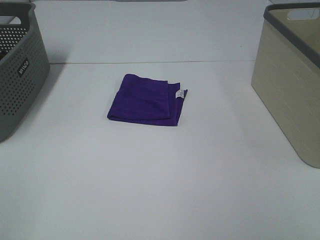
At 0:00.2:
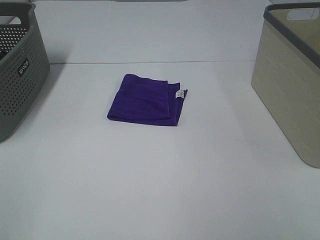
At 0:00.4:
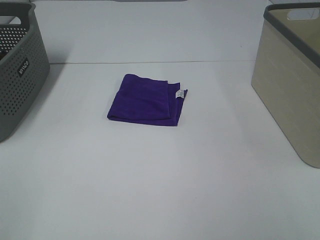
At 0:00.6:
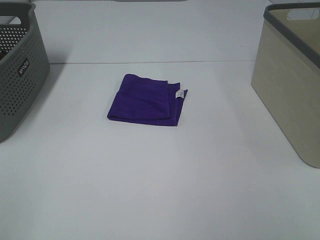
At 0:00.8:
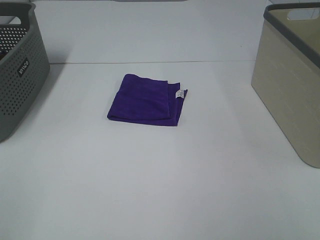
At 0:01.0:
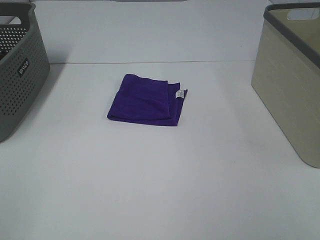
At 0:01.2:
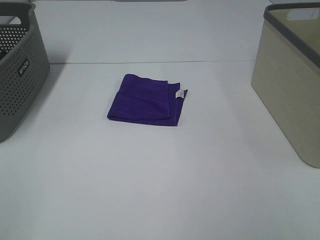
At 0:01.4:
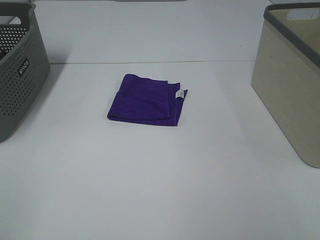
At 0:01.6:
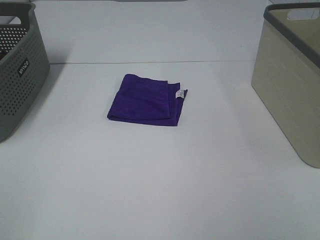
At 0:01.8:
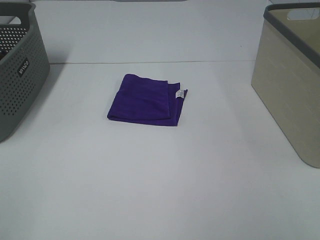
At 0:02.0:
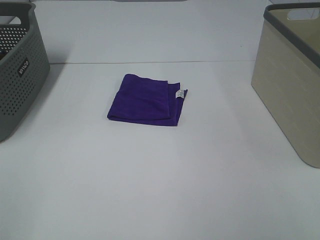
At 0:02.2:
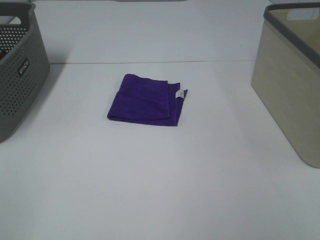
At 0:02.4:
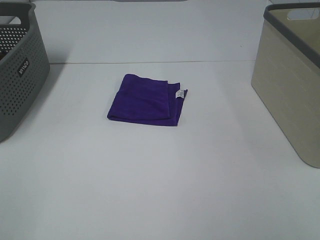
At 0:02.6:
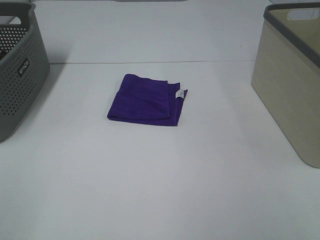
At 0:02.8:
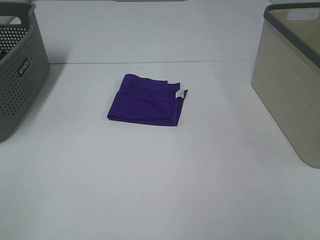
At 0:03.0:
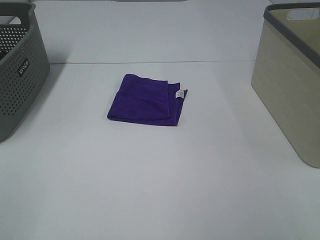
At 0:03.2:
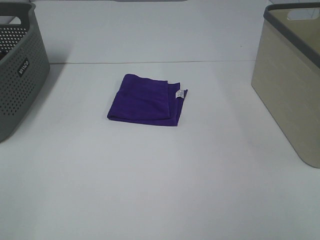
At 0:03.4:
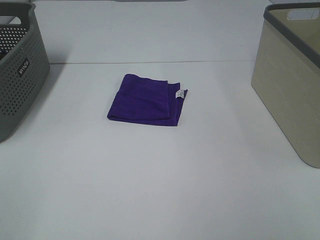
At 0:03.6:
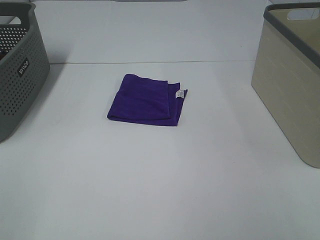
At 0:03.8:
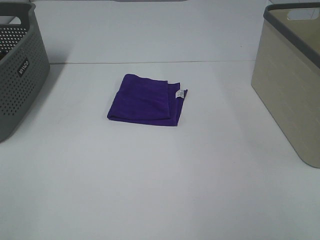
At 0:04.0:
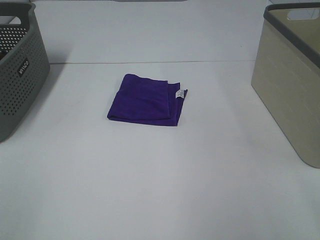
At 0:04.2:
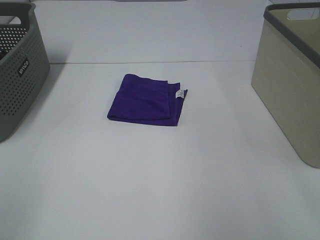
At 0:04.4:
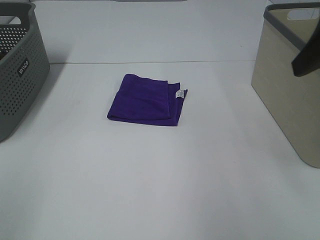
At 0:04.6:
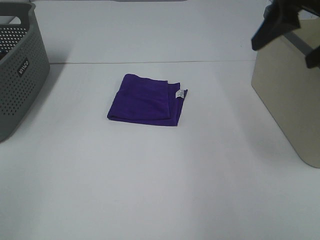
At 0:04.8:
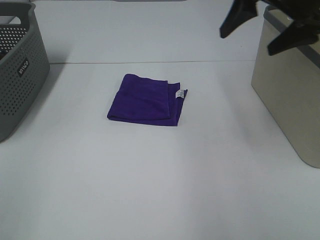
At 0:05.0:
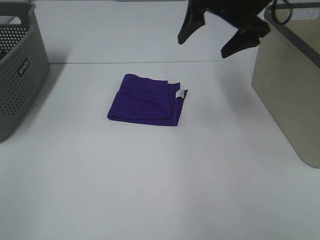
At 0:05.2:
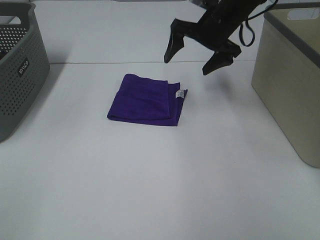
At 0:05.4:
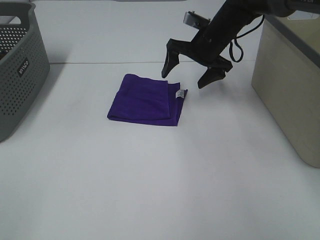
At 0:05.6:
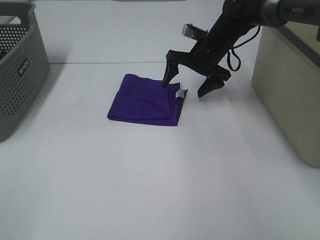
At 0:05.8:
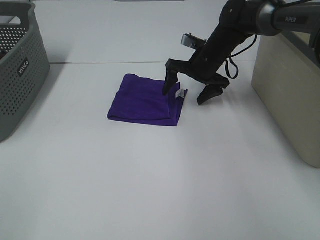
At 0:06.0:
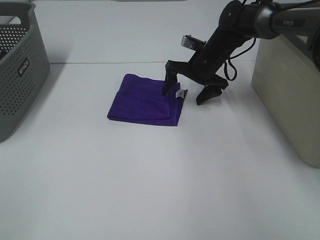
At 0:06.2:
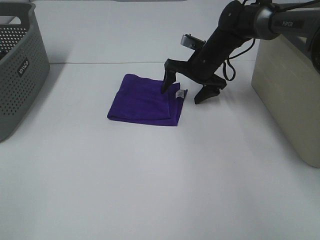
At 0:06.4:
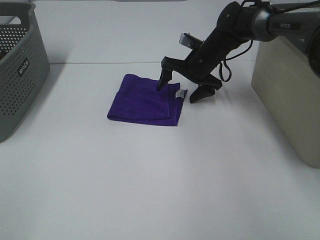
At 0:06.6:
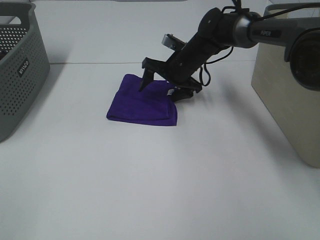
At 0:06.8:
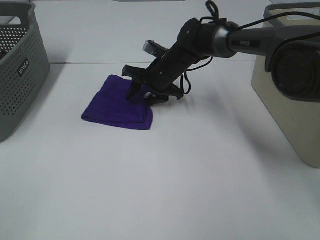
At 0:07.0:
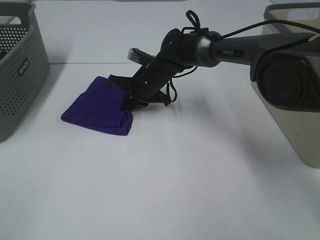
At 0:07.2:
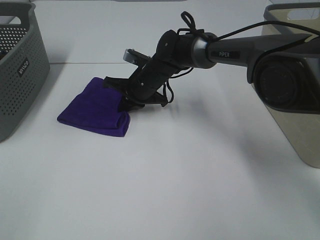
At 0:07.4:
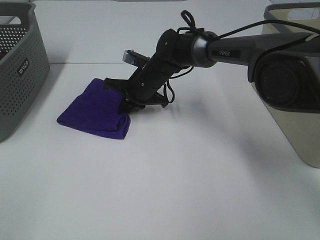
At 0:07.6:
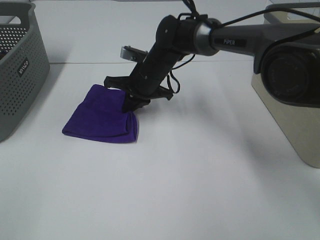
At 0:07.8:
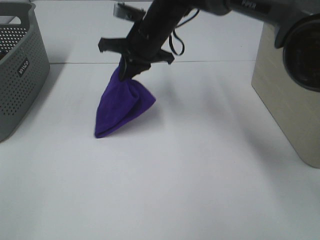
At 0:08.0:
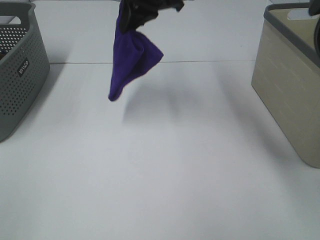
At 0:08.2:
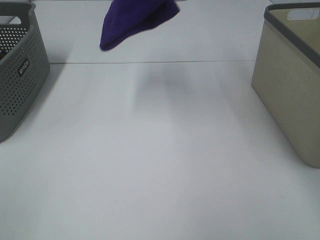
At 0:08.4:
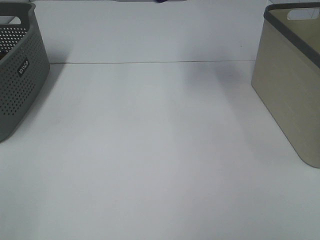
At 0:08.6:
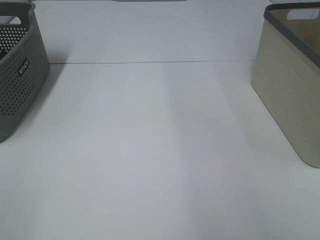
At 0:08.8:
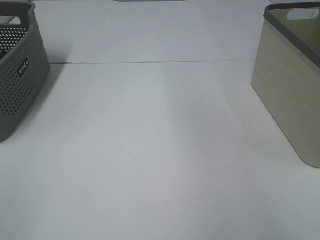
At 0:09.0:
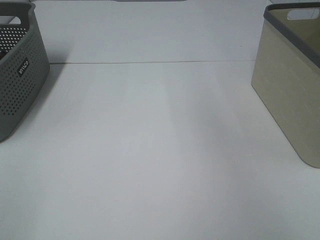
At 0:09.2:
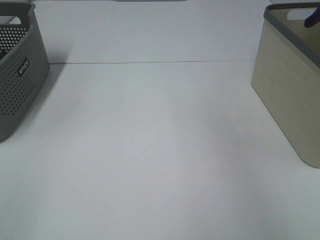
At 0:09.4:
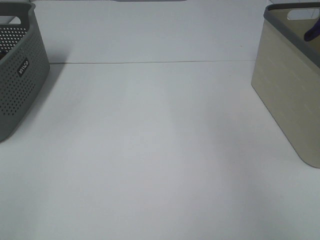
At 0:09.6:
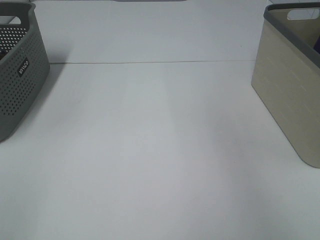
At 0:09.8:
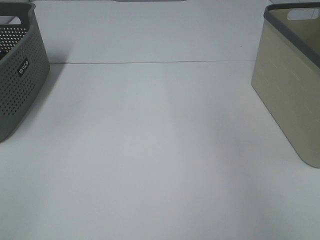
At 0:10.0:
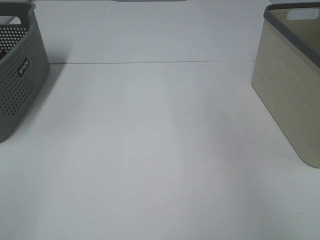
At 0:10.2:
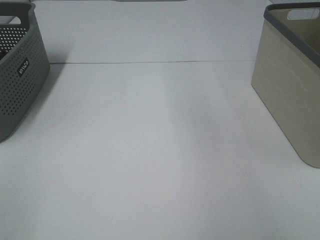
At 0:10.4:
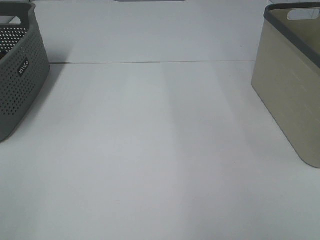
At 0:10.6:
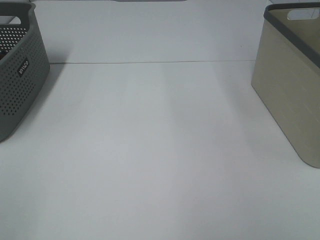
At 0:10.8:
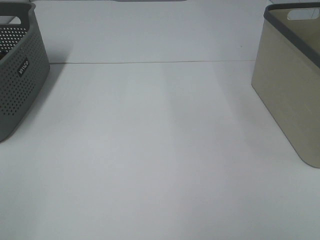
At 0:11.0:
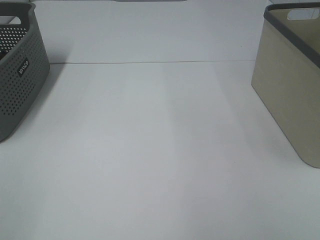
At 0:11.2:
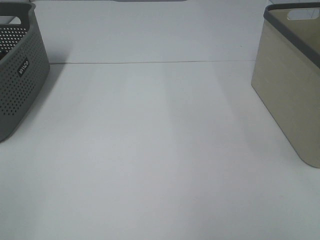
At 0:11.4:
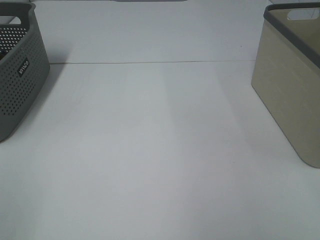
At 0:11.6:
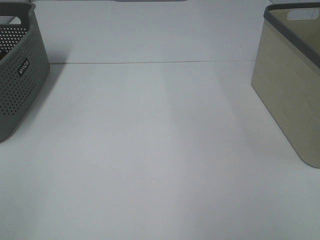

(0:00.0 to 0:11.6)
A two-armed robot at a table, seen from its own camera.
Step, 0:00.0 - 0:07.0: Right hand: grab the folded purple towel.
Step, 0:07.2 - 0:09.8: Right hand: place the purple towel in right basket.
0:00.0 - 0:02.8: The two grippers keep their place.
0:02.8 - 0:04.4: The right gripper is displaced forward by some 20 cm.
0:04.4 - 0:05.8: The right gripper goes some 35 cm forward, downward and to the left.
0:05.8 - 0:07.2: The right gripper travels to the left by about 15 cm, and closes up.
0:07.2 - 0:08.8: The right gripper shifts some 50 cm upward and to the right.

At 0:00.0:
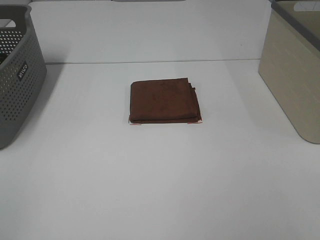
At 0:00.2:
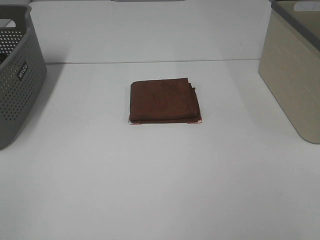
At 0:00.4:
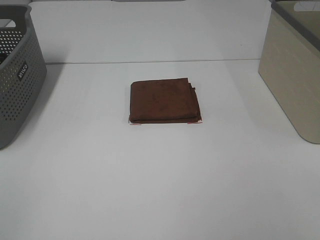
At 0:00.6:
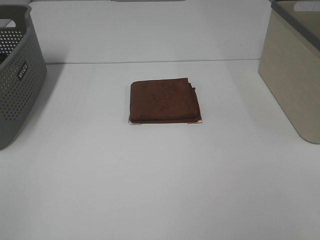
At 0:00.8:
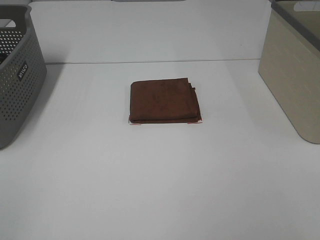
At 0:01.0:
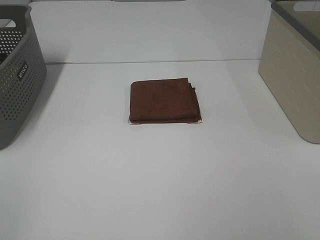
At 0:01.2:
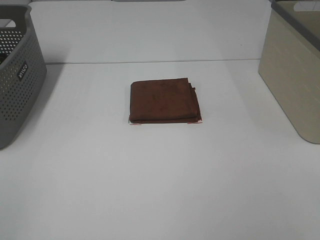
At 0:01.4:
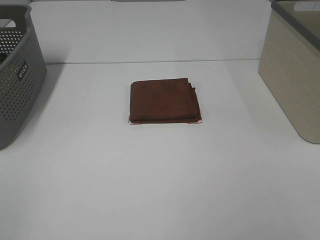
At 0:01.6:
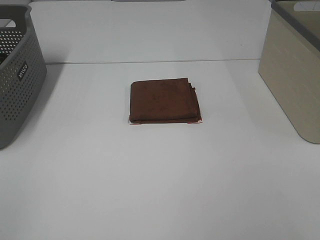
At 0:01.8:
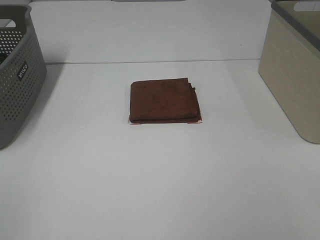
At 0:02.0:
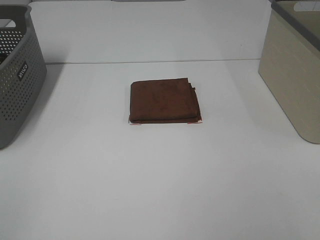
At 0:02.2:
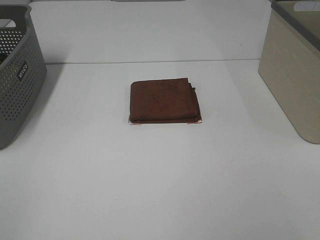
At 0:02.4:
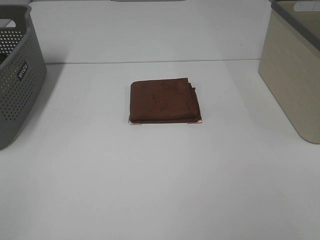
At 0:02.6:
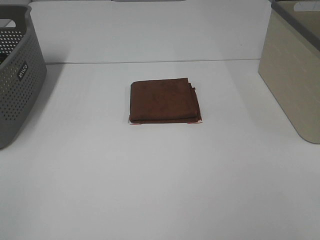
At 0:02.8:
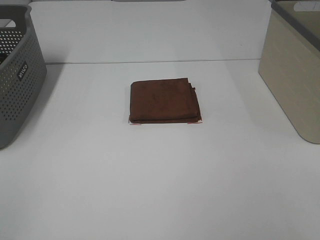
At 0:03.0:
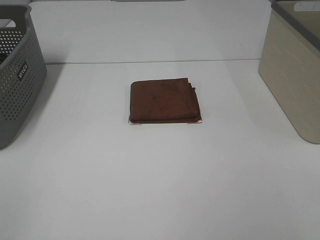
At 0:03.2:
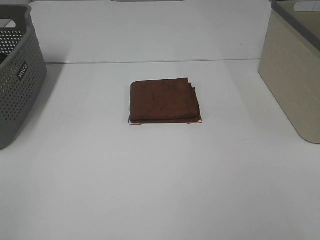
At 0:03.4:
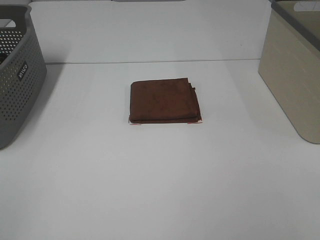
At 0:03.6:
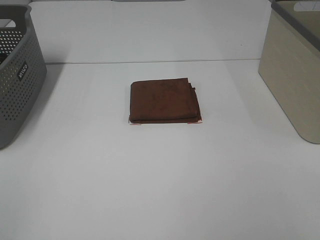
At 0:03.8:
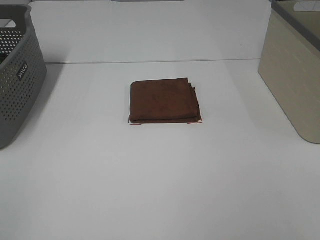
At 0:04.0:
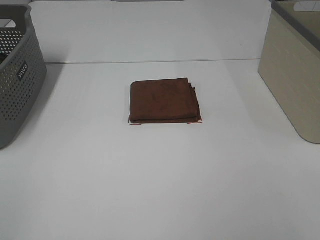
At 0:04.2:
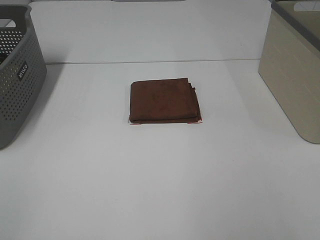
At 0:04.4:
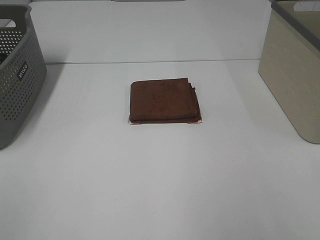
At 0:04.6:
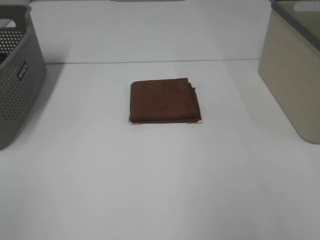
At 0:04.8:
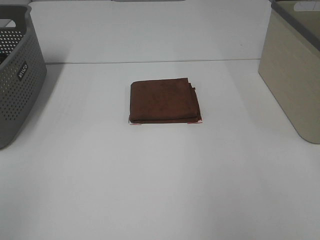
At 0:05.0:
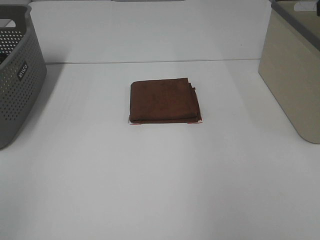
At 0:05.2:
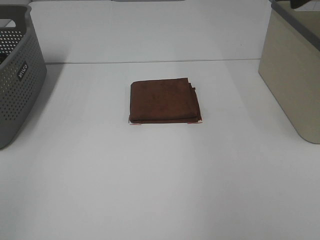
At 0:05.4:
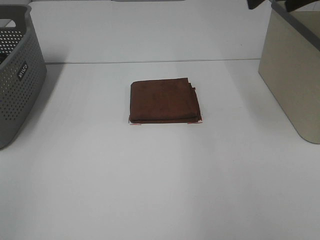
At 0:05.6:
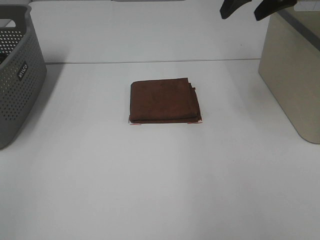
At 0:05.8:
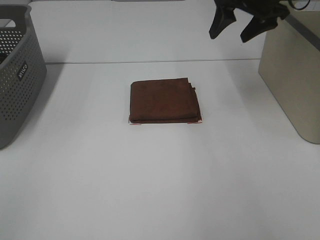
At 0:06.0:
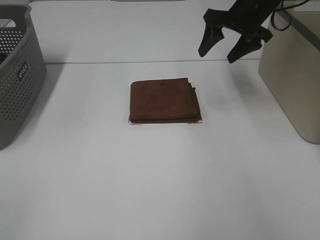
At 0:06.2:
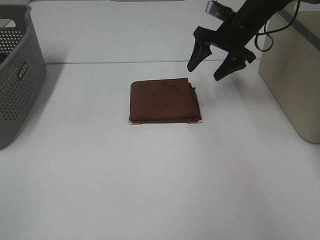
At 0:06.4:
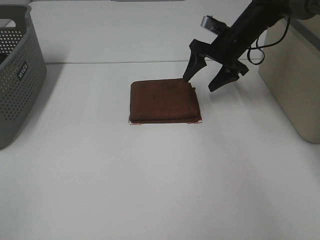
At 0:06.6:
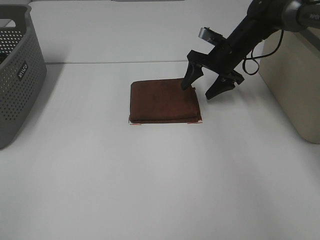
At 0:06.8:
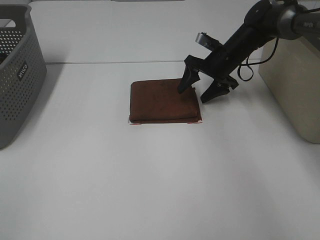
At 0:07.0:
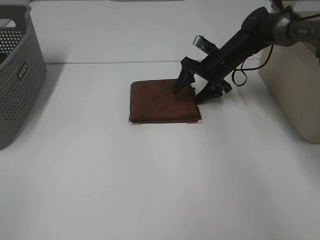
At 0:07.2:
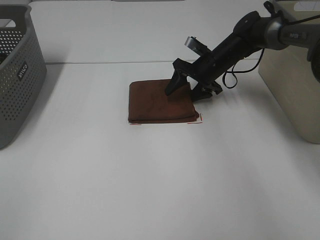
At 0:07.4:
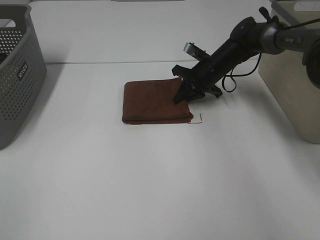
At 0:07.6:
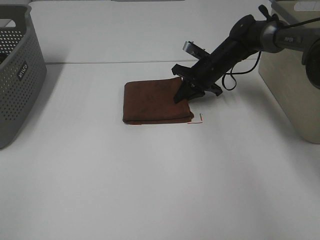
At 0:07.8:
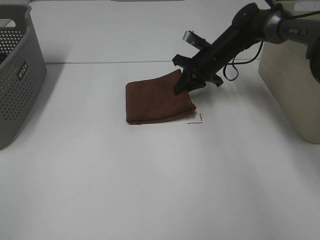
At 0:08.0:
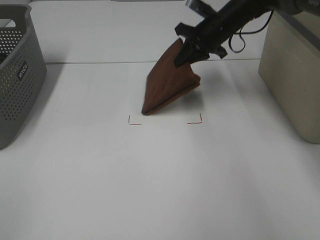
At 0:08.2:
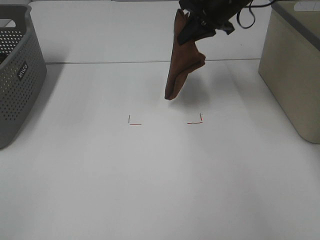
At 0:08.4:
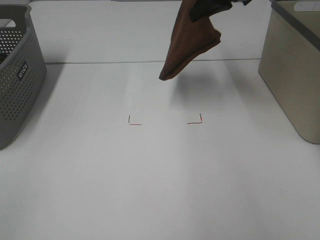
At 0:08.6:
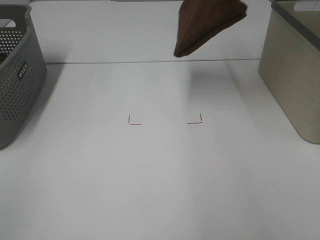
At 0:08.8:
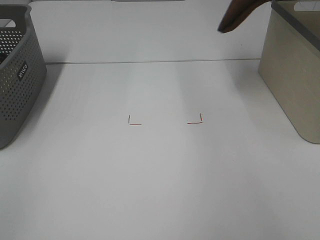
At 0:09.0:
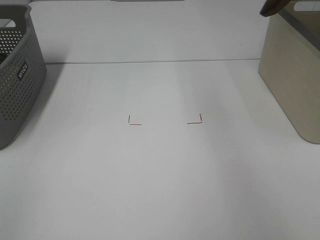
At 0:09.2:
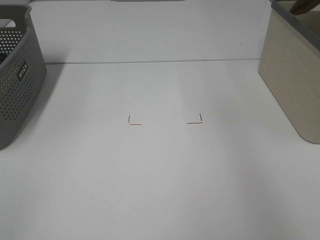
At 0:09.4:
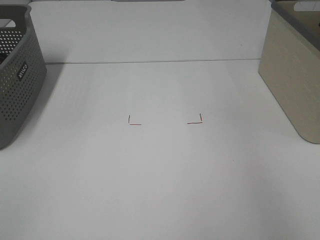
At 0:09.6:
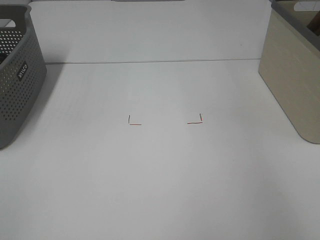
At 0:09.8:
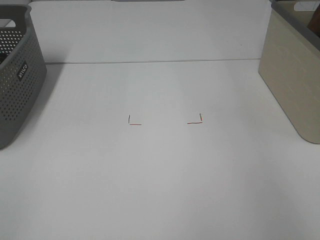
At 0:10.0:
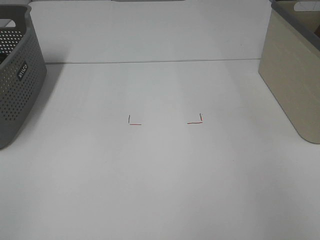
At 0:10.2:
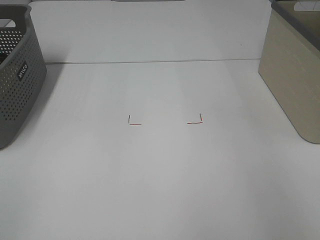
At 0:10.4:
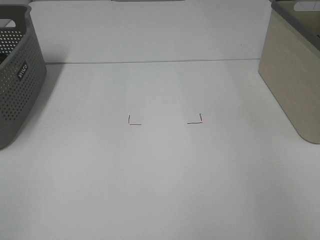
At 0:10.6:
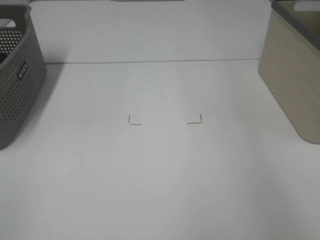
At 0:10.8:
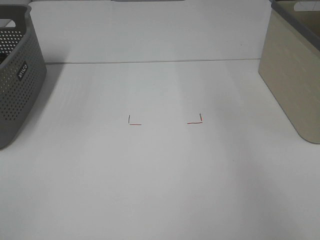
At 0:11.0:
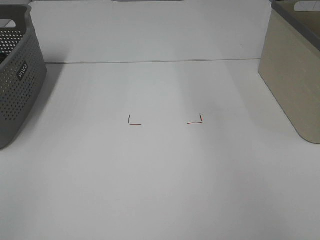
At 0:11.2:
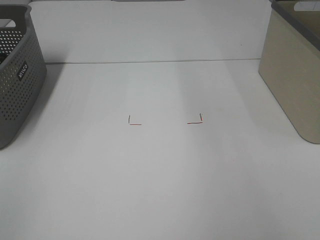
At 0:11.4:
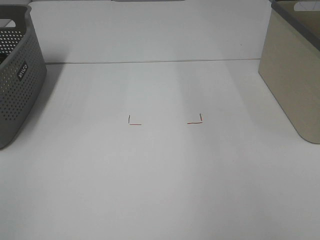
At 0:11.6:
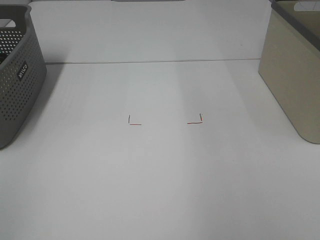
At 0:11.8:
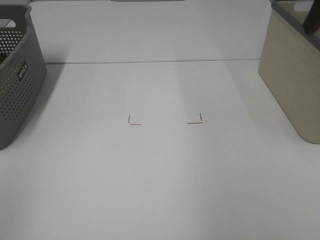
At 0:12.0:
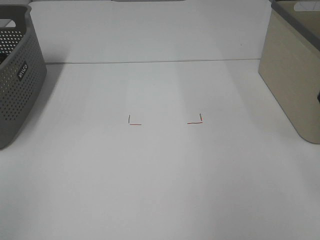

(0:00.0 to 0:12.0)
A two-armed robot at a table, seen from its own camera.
Step, 0:00.0 - 0:07.4: Right hand: grab the folded brown towel.
Step, 0:07.6 - 0:10.2: Right hand: place the brown towel in right basket.
0:00.0 - 0:03.0: Both grippers stay about where they are.
0:04.4 - 0:06.0: The right gripper is displaced forward by roughly 40 cm.
0:06.0 - 0:07.6: The right gripper travels downward by approximately 15 cm, and closes.
0:07.6 - 0:09.0: The right gripper moves upward and to the right, some 40 cm.
